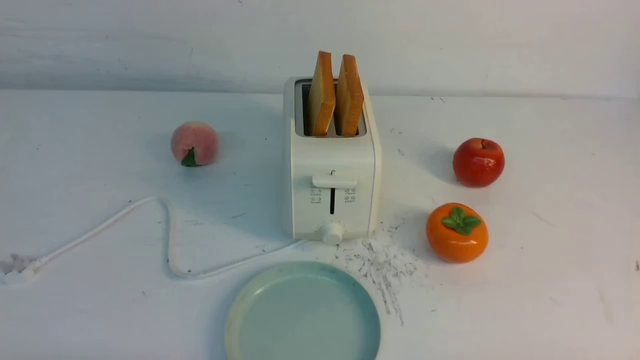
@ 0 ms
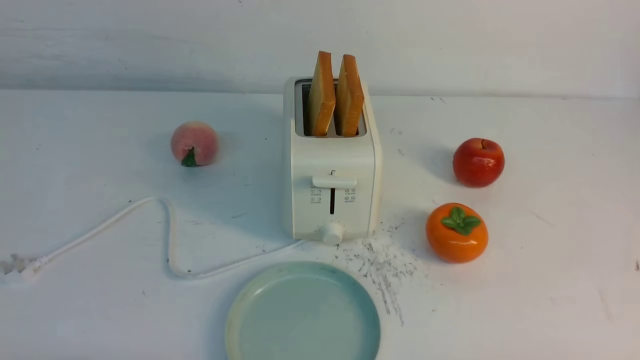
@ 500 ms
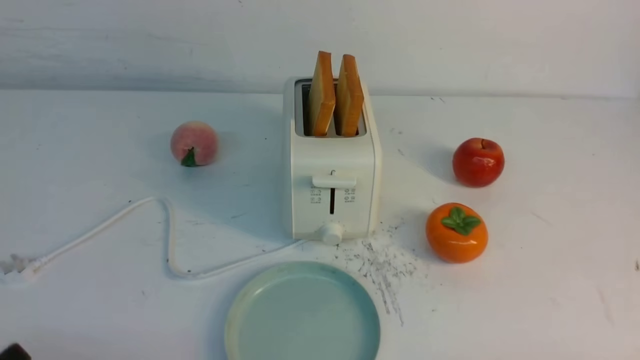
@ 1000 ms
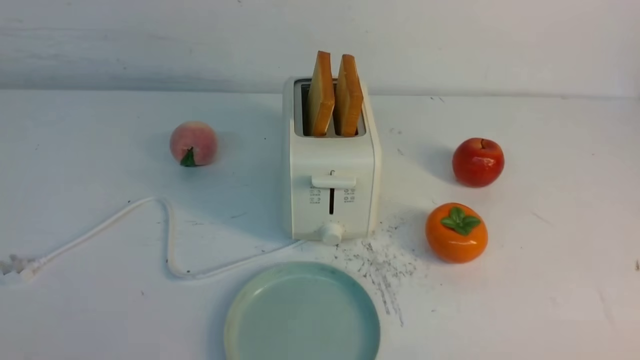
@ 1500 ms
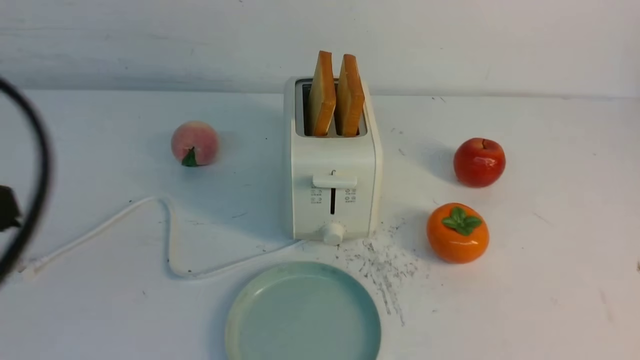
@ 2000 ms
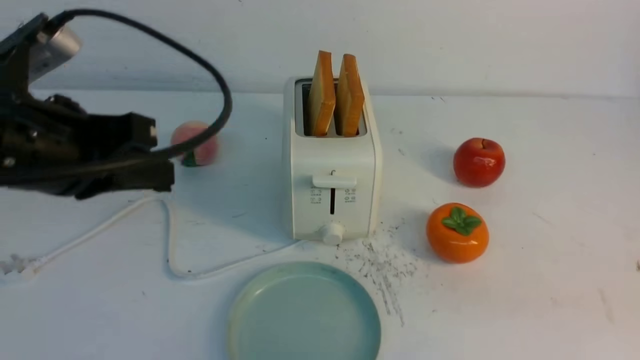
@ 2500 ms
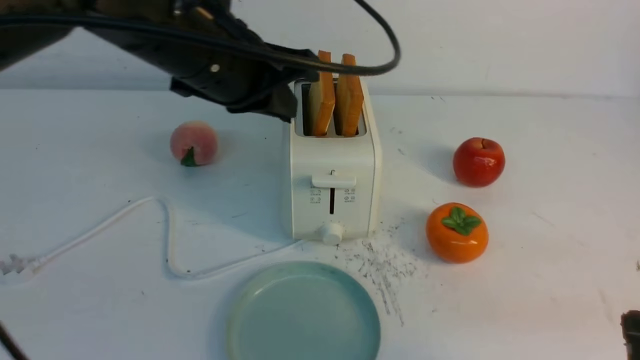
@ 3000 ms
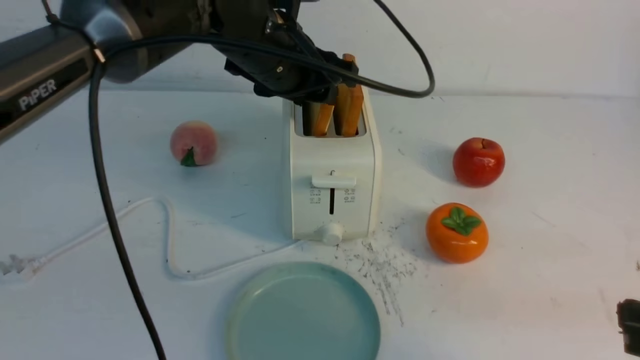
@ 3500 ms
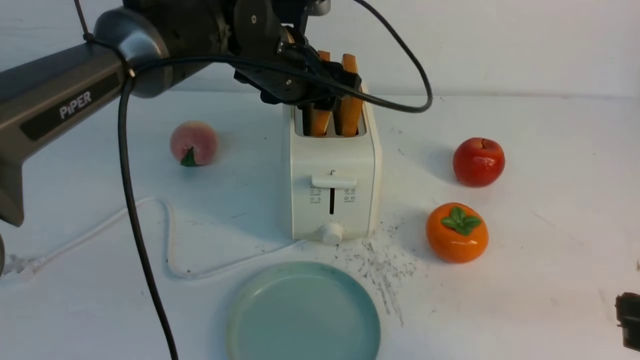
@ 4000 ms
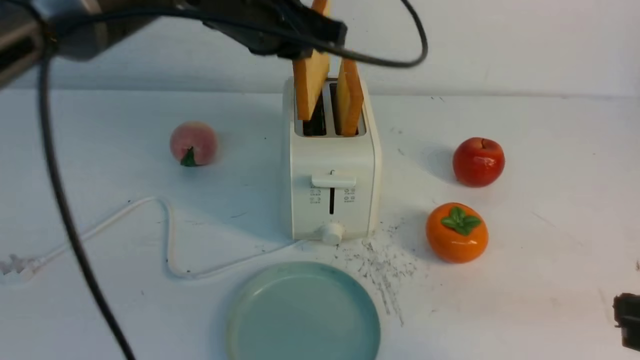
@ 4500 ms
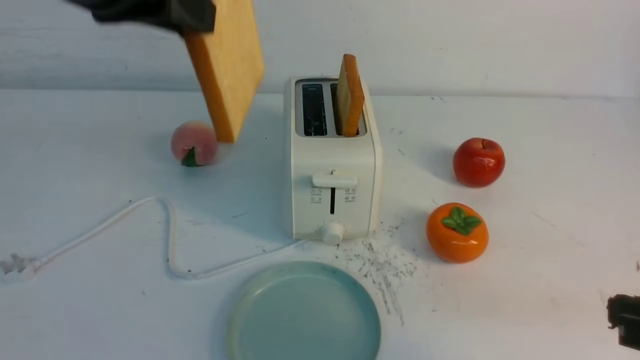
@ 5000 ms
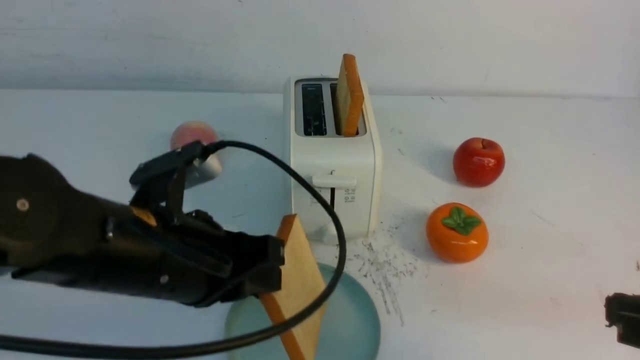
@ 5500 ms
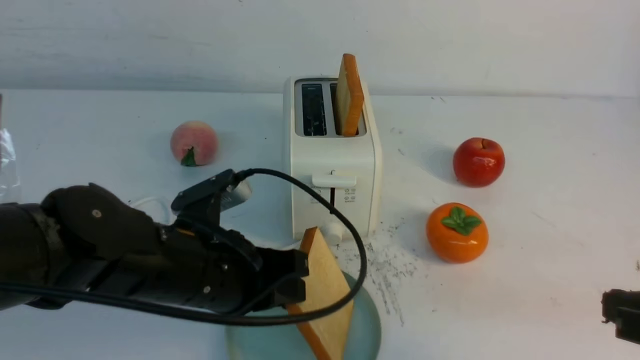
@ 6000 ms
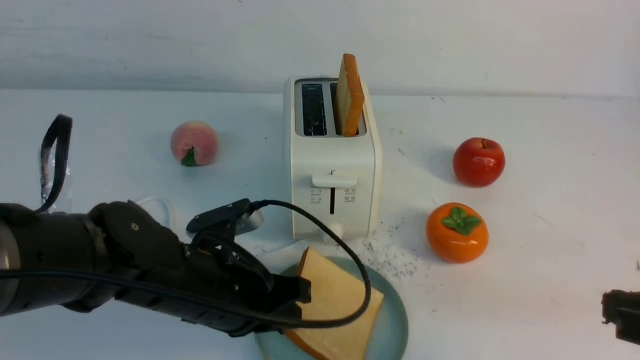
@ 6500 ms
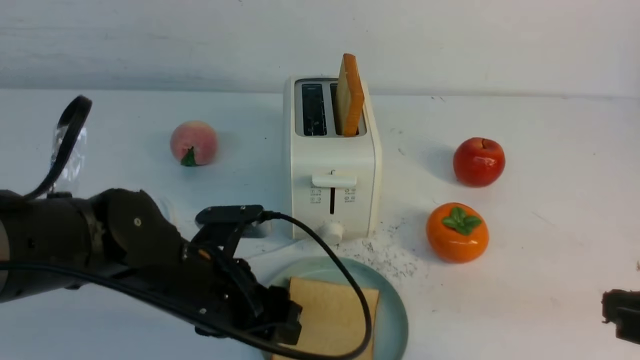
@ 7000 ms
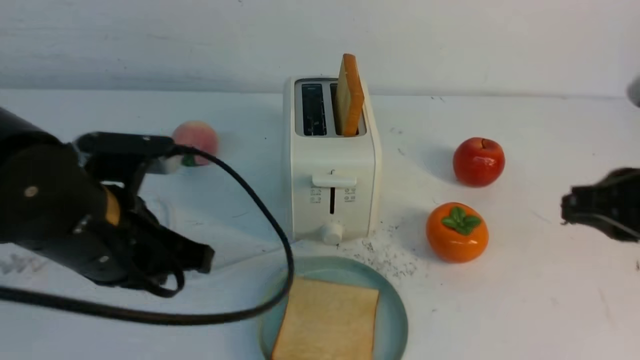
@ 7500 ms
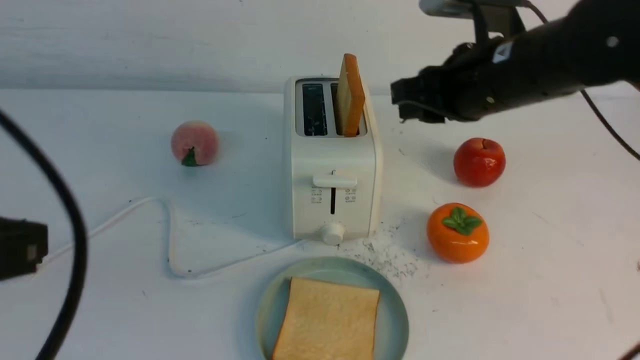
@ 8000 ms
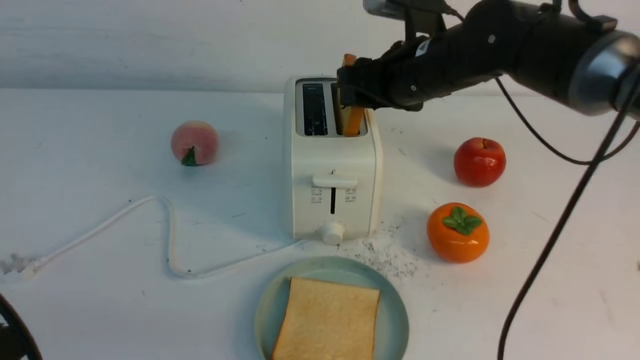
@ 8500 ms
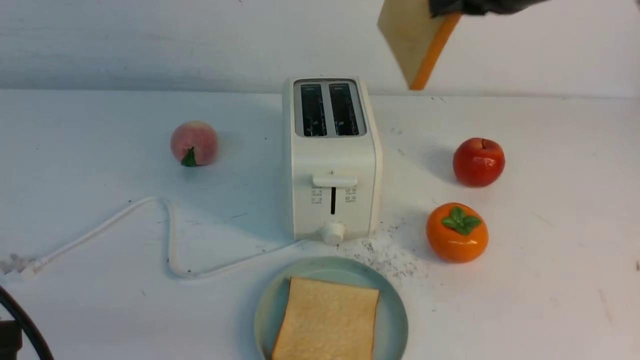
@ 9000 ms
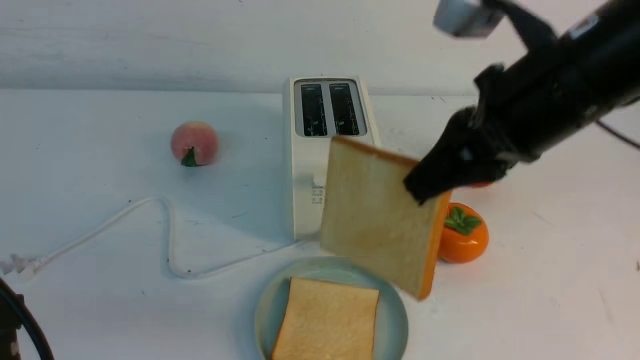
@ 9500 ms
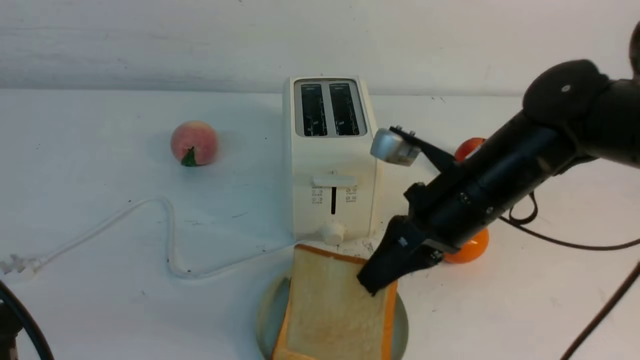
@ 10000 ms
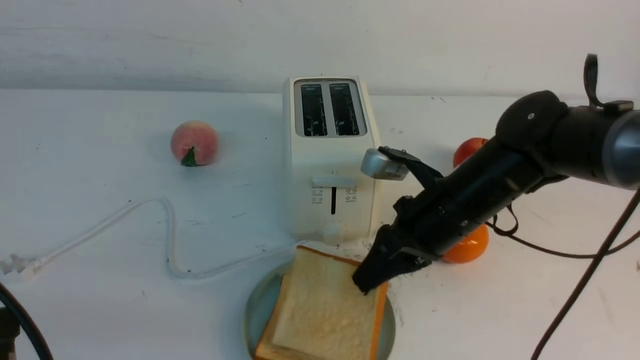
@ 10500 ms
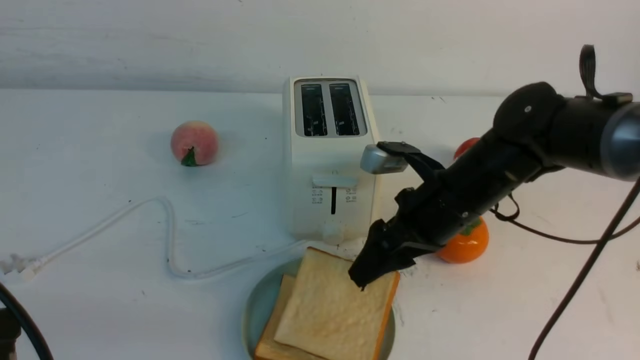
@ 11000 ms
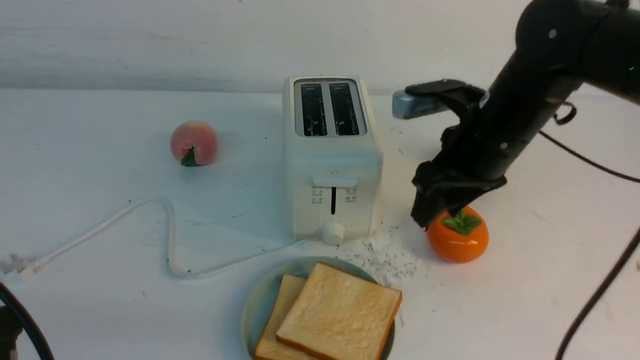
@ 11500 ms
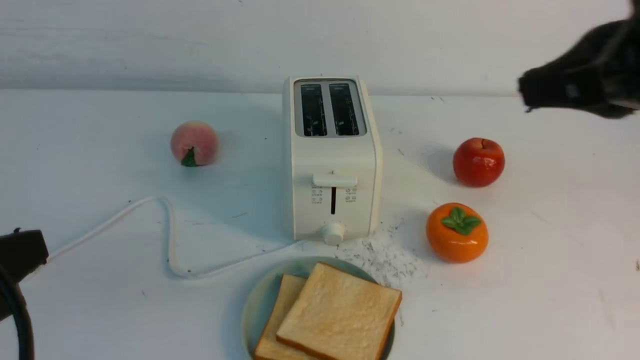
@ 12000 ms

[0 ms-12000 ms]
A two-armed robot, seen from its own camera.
Task of the whole recording: take toasted bread from bread machine on white table place on plate.
Step, 0 ms to 4500 ms: use the left arm to take out a slice of bread.
Step, 5500 ms to 7000 ms: use the left arm to put a slice of bread into the empty plate.
Step, 7500 ms to 8500 ms: use the right arm to take out a slice of bread.
Step, 9000 ms to 11000 ms: use the right arm to put a slice of bread into the plate.
0 ms to 2000 ms: The left gripper heads upward, covering roughly 20 cm, and closes.
2000 ms to 4000 ms: The right gripper goes approximately 10 cm forward, and closes up; the left gripper is displaced forward and to the right by about 35 cm, and opens up.
4000 ms to 6000 ms: The left gripper travels backward and downward by roughly 20 cm, and closes.
6000 ms to 8000 ms: The left gripper moves upward, backward and to the left, some 20 cm, and opens and closes again. The right gripper travels forward and to the left by approximately 25 cm, and opens its fingers.
8000 ms to 10000 ms: The left gripper goes approximately 5 cm downward. Meanwhile the right gripper moves downward, some 10 cm.
10000 ms to 12000 ms: The right gripper shifts some 20 cm upward, backward and to the right, and opens, then closes once more.

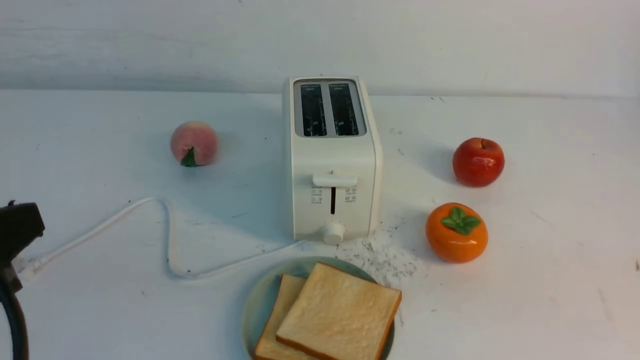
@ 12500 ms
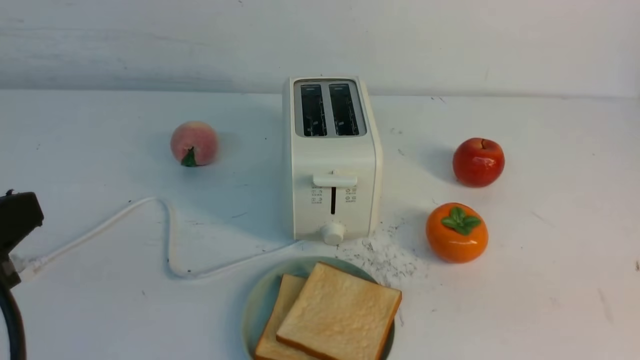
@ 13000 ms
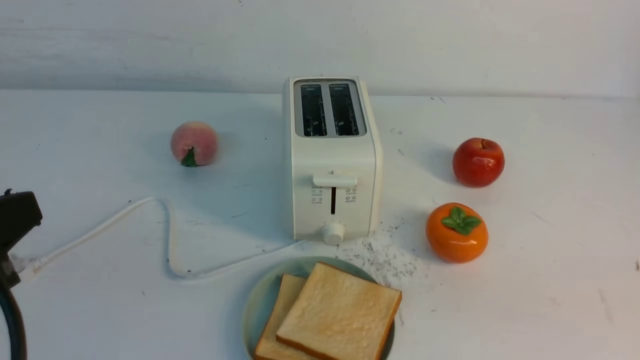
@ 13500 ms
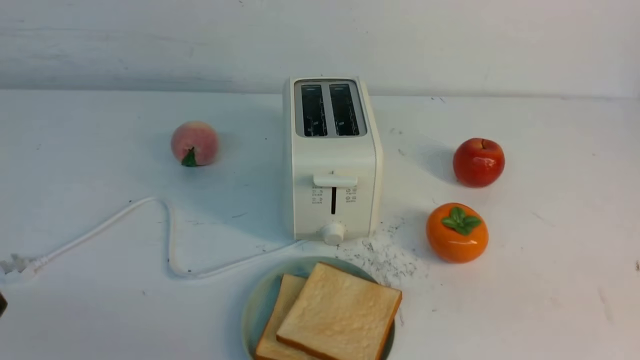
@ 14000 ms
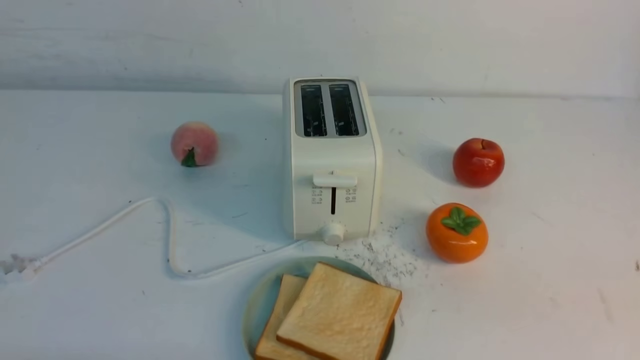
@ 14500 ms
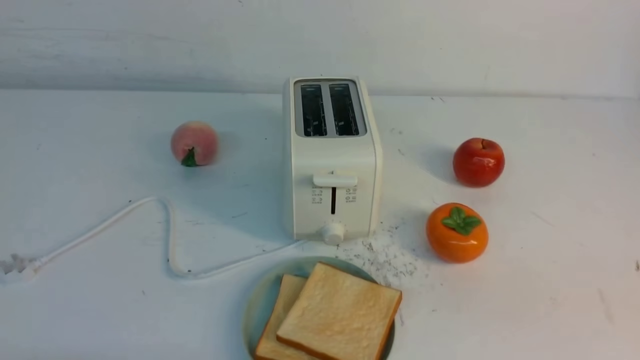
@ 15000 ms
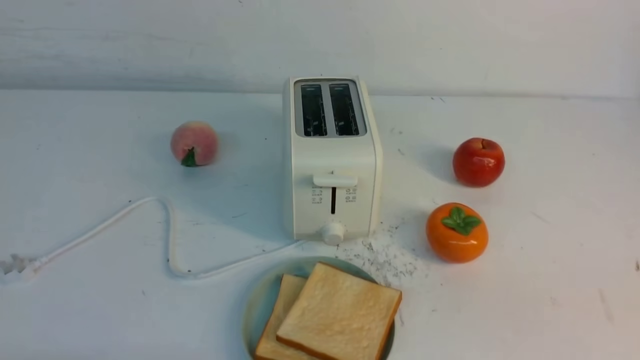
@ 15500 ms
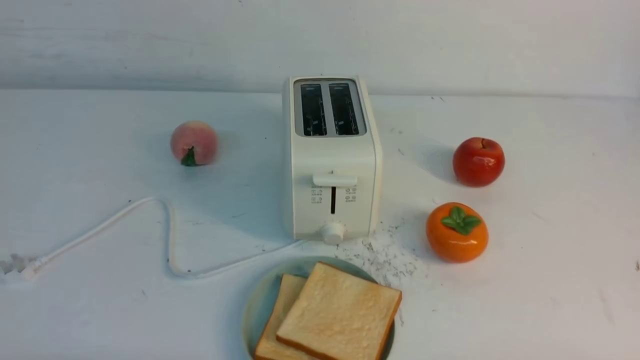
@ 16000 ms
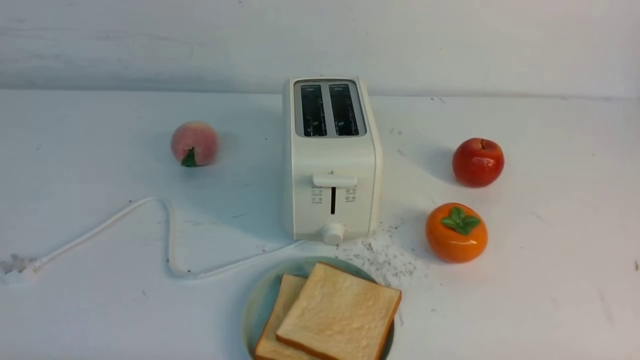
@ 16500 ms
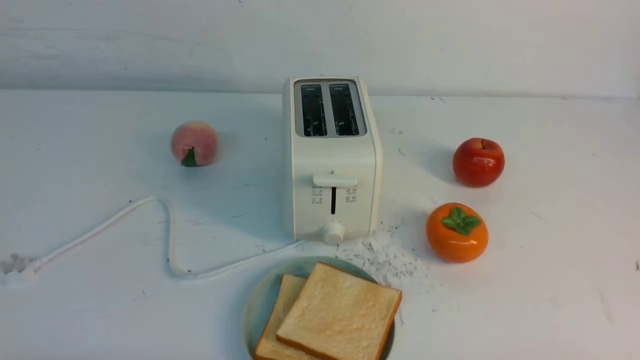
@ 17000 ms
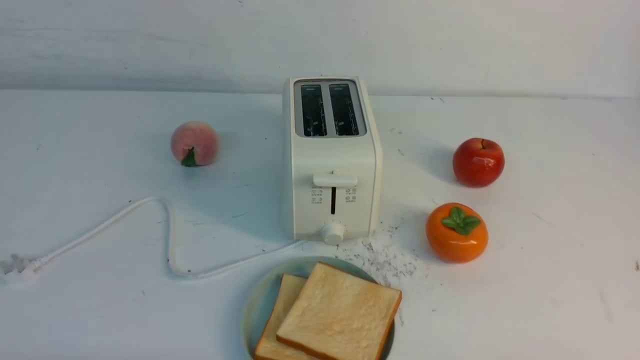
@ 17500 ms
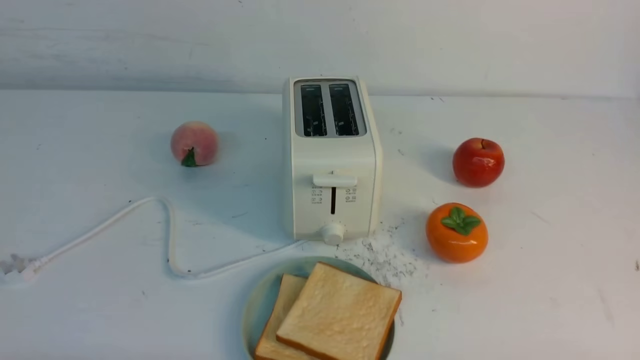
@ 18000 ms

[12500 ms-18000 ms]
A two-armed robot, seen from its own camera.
Task of the whole recording: take toasted bread from bread machine on white table place on plate.
12500 ms to 14500 ms: The left gripper is displaced downward by about 15 cm.

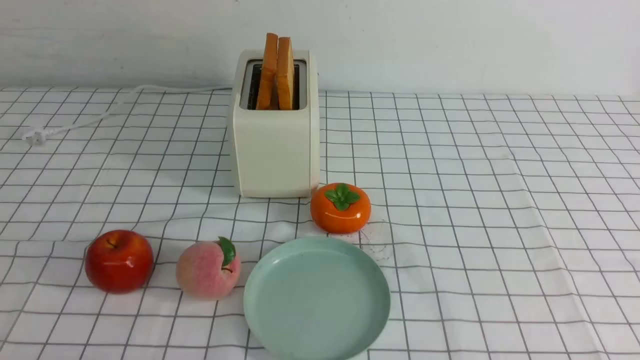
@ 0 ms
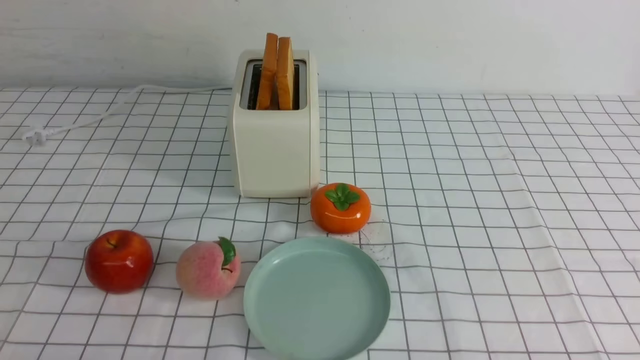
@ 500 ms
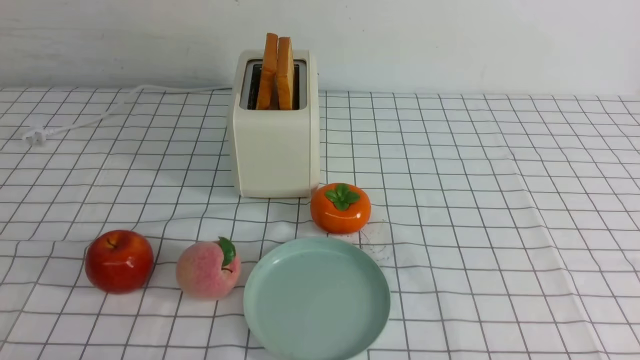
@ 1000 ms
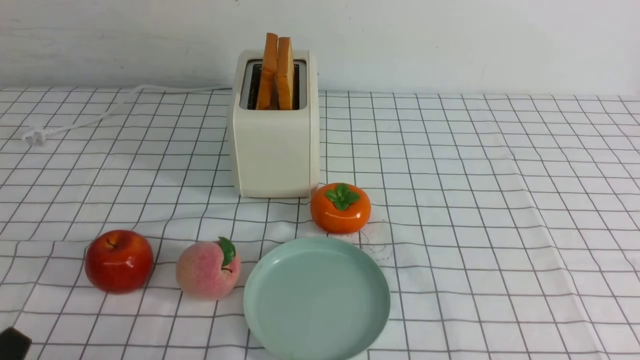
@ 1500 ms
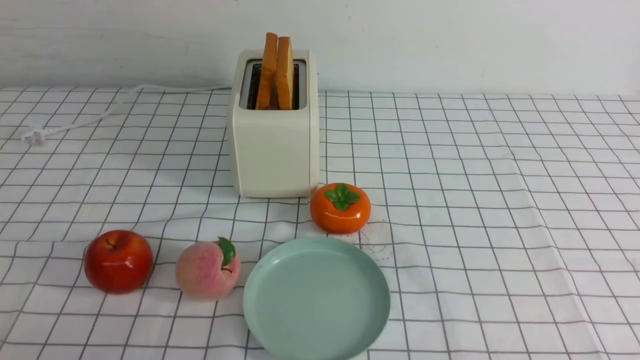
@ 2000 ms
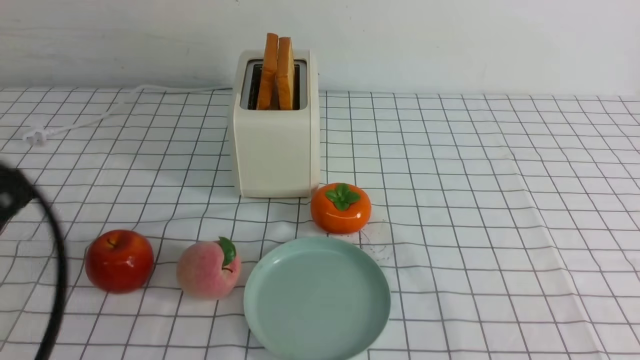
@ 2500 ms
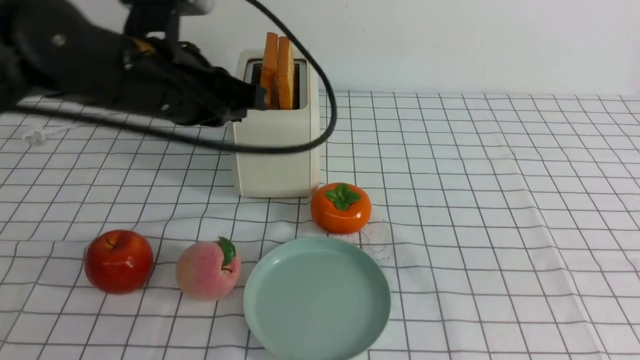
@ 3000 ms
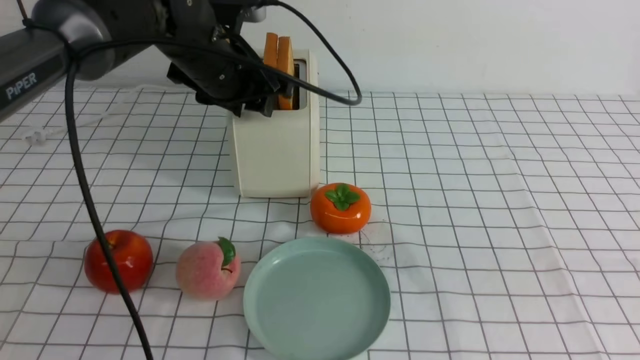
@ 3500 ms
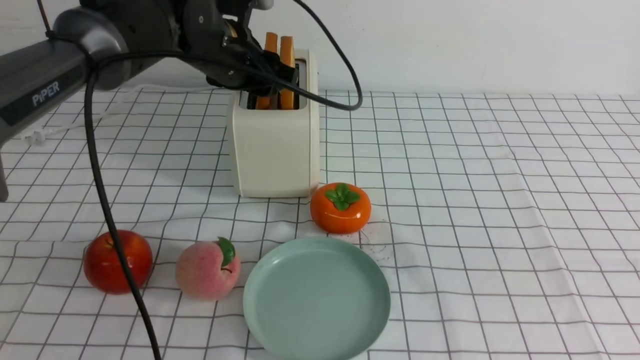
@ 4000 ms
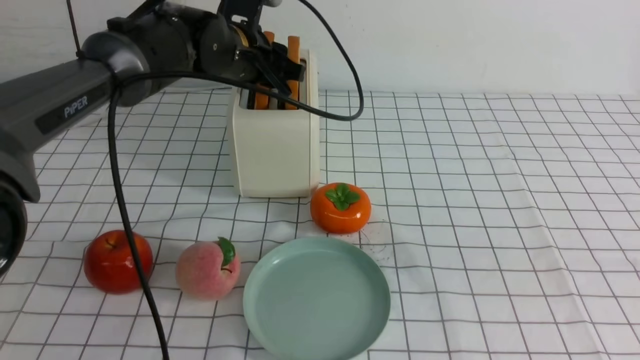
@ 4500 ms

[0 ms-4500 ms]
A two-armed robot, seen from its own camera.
Task of the whole recording: take toasted bread from bread machine on white checkered table place on plate.
2000 ms to 4500 ms: The right gripper travels upward by approximately 20 cm, and closes up. The left gripper travels forward by approximately 40 cm.
